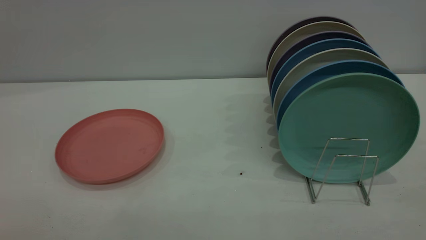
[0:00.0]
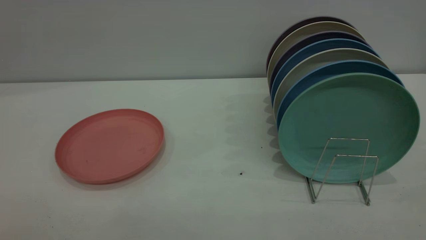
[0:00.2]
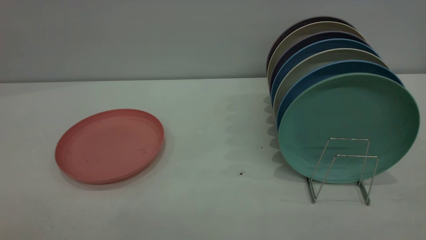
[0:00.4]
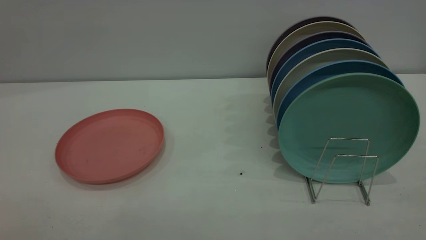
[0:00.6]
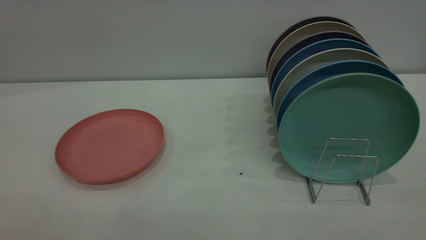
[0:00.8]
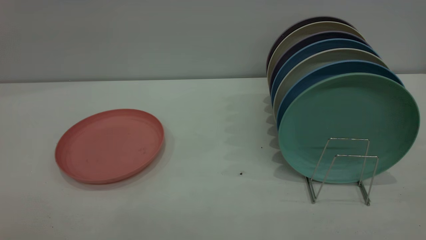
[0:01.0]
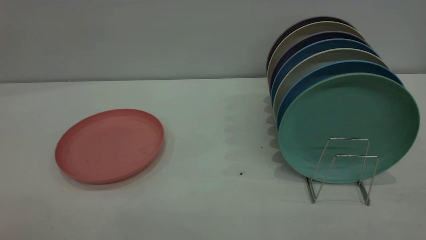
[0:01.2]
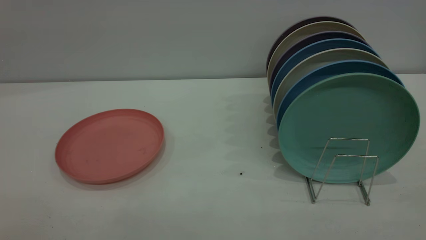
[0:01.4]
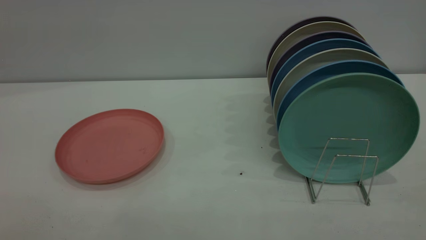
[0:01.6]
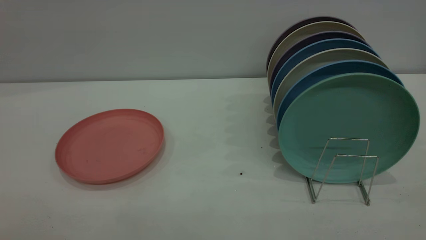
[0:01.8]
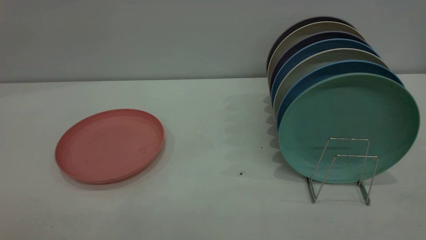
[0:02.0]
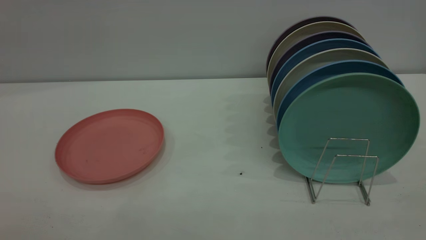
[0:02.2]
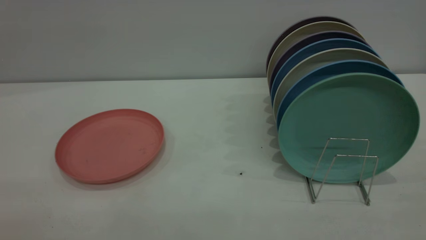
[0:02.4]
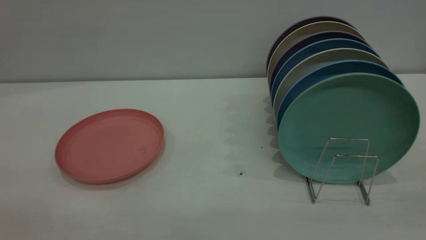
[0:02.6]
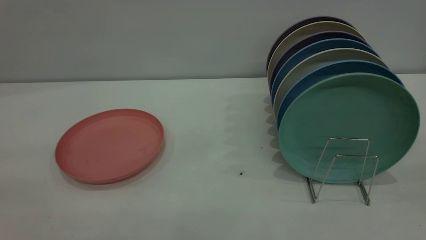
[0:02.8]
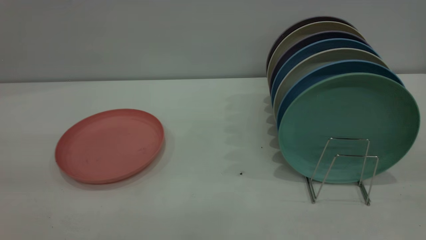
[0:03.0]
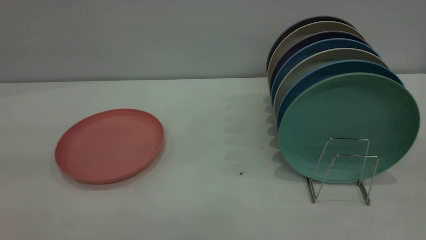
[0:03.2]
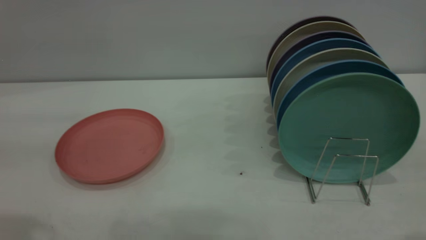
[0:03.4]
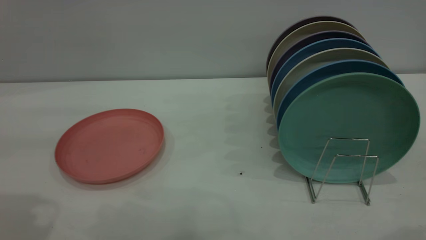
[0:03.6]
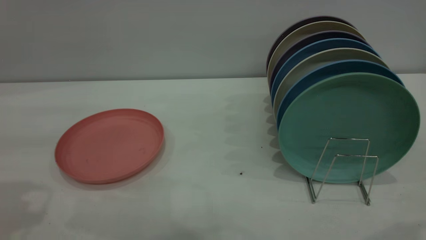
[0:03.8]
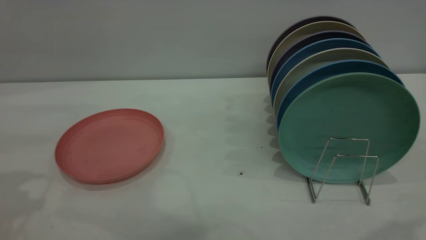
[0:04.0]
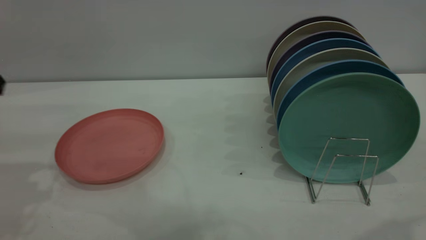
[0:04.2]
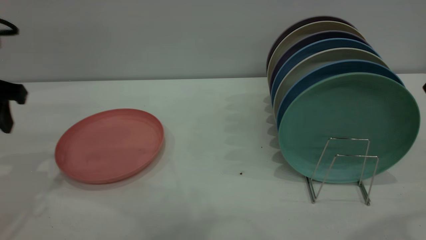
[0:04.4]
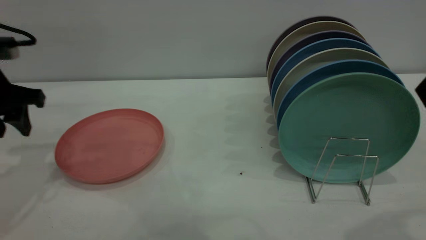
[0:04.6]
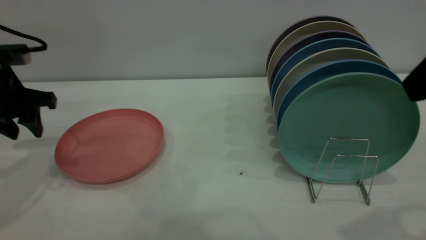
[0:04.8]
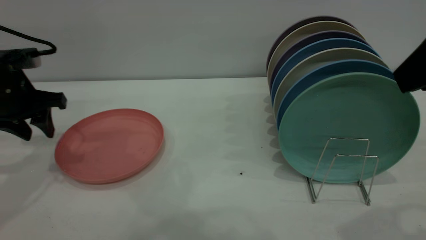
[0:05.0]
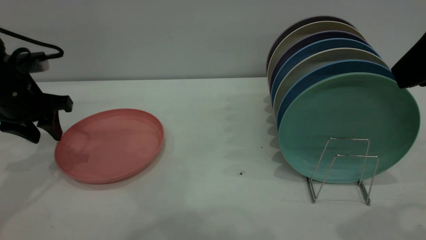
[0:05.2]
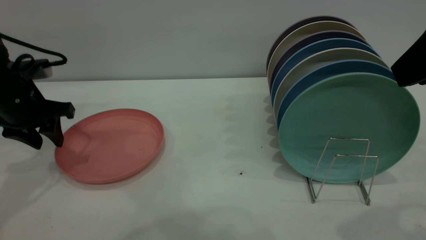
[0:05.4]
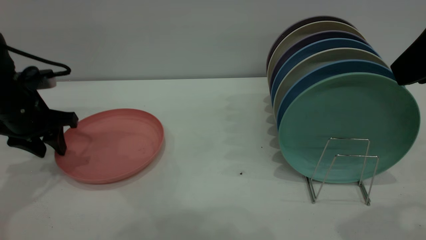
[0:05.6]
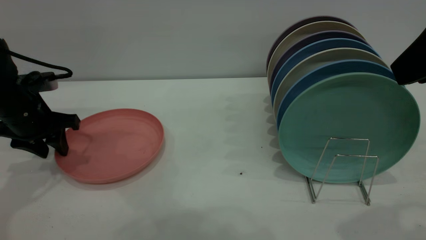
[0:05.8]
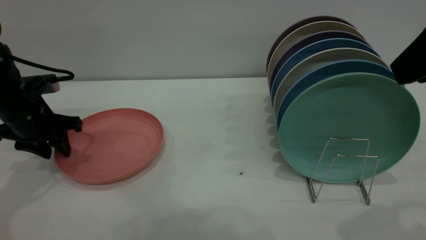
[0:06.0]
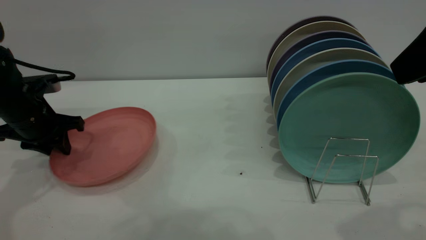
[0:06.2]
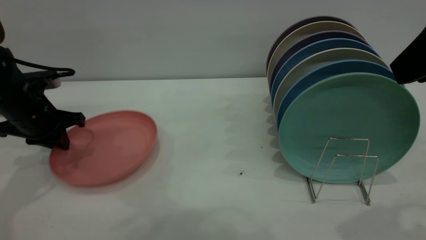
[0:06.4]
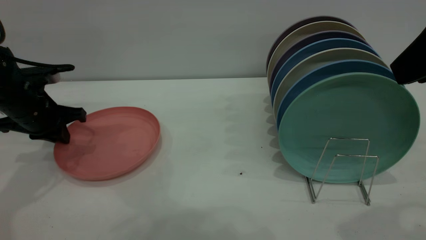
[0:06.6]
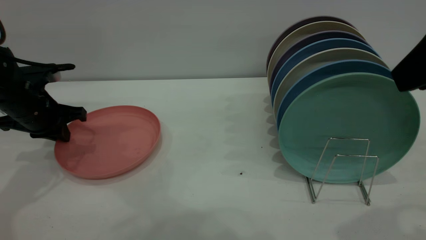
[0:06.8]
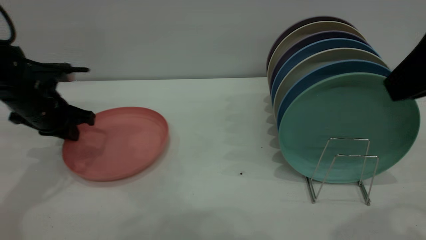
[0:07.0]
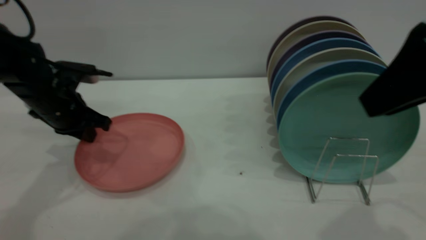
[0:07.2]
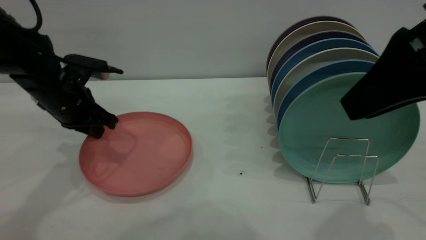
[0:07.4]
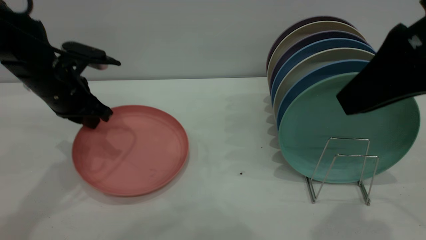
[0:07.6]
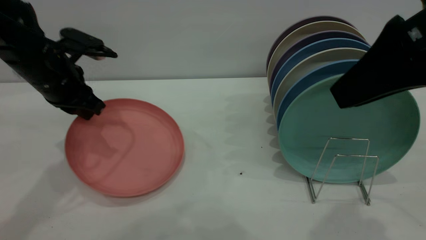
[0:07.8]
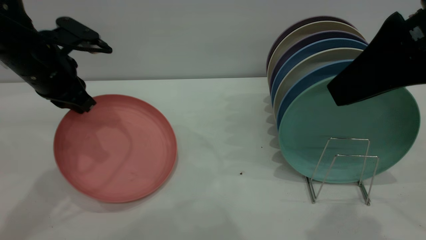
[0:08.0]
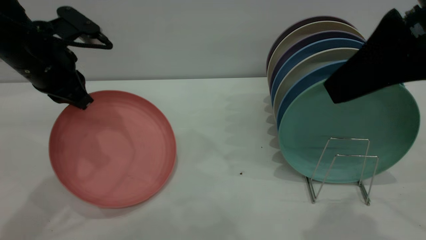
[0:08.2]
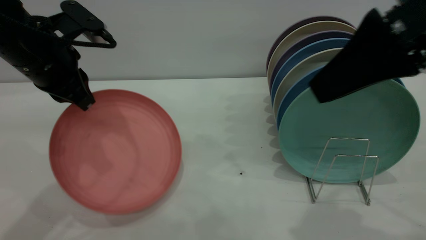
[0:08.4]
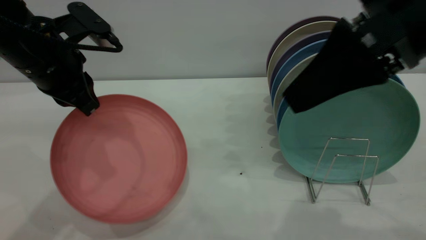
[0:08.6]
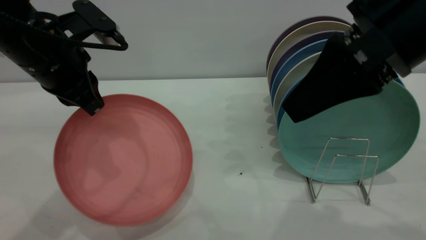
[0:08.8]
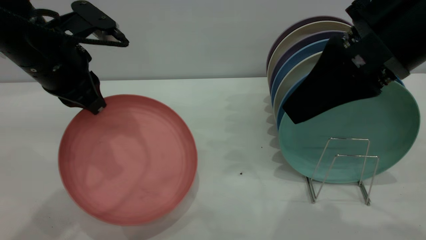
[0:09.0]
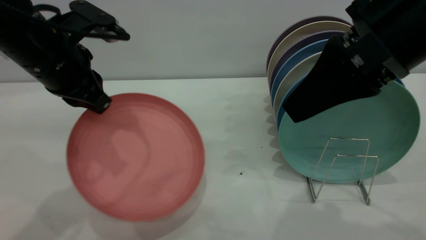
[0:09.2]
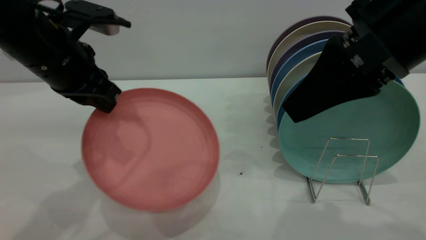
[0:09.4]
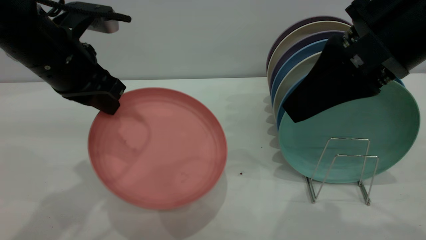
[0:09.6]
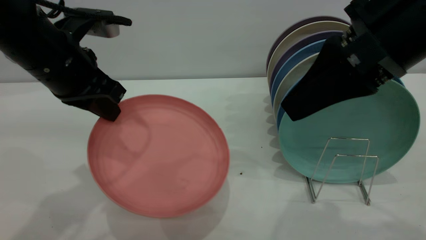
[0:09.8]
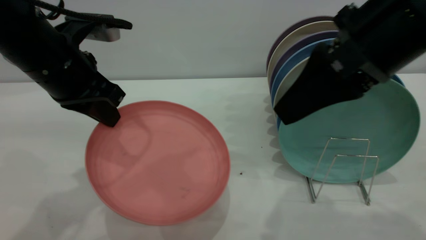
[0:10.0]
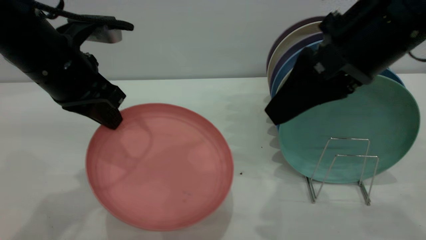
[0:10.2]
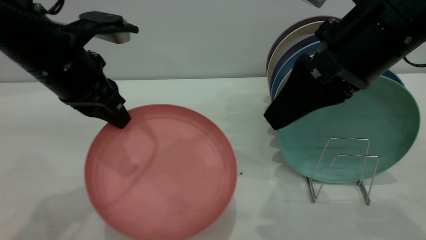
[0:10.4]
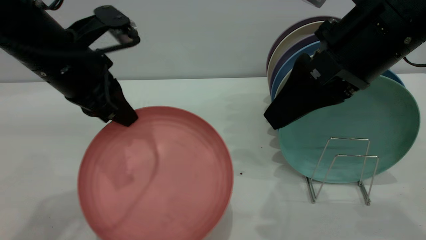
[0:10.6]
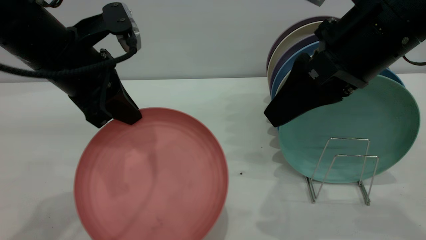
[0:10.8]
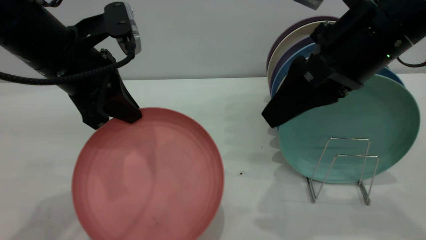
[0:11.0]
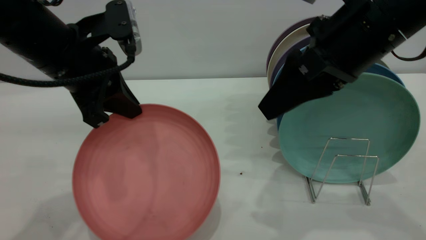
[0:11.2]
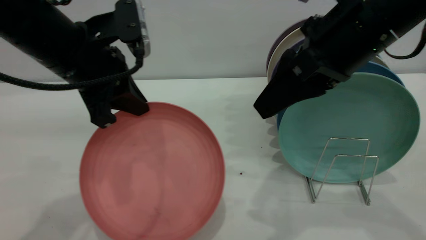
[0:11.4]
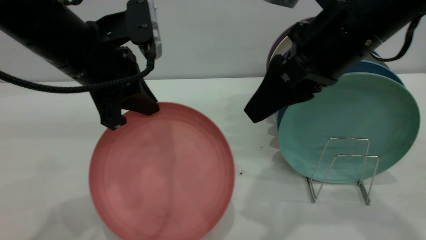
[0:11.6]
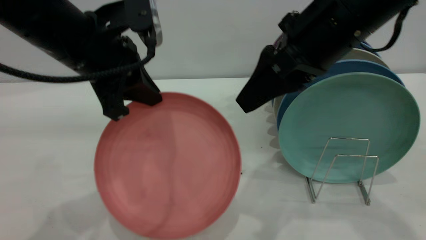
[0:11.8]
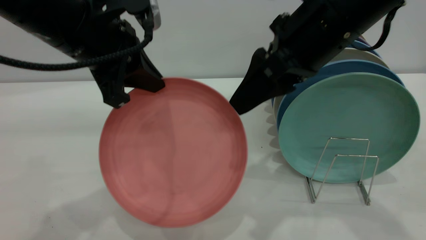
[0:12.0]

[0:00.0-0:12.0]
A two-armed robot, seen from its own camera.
Task of the whole recording: put the plate on the plate rack.
Step, 0:00.0 to 0:08.2: Pick up the plate with the left gripper.
0:00.0 to 0:01.6: Both grippers stay about where they are.
0:03.0 to 0:04.4: The left gripper moves forward and downward, about 25 cm.
0:04.4 to 0:06.0: The left gripper heads downward and forward, covering approximately 10 cm.
0:06.0 to 0:07.6: The left gripper is displaced to the right by roughly 5 cm, and closes up.
0:07.6 to 0:09.0: The right gripper ends up approximately 5 cm from where it was; the left gripper travels upward and backward by roughly 10 cm.
0:10.4 to 0:12.0: The right gripper changes place by some 5 cm.

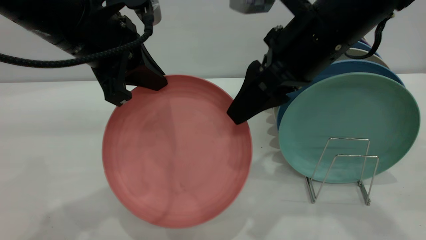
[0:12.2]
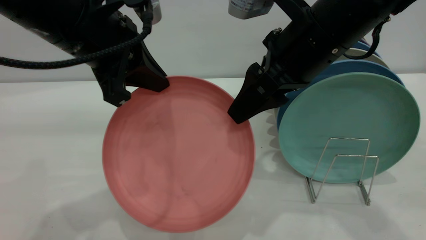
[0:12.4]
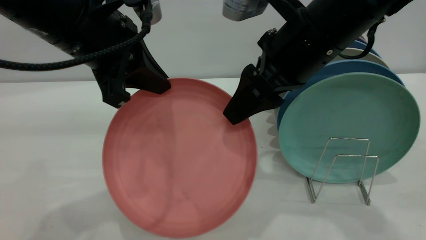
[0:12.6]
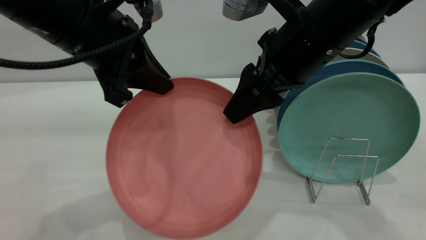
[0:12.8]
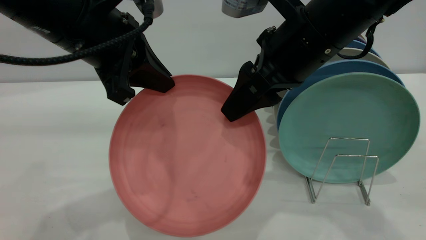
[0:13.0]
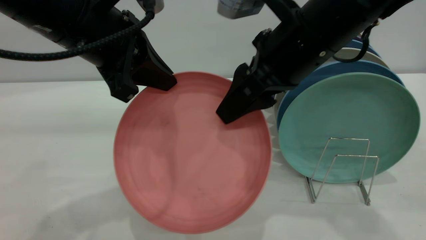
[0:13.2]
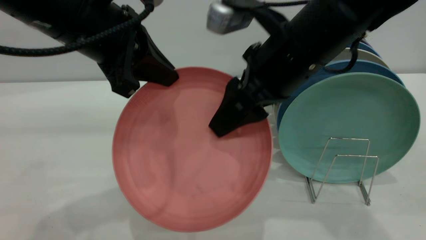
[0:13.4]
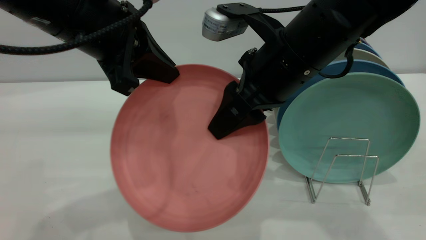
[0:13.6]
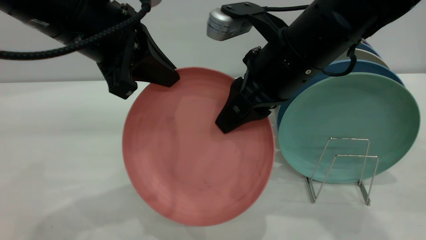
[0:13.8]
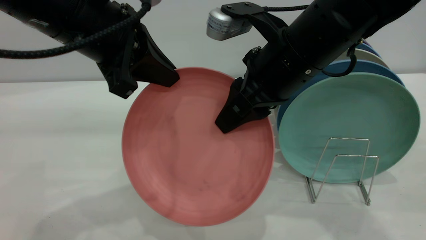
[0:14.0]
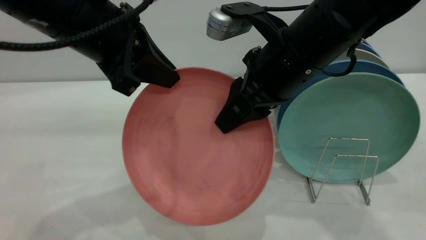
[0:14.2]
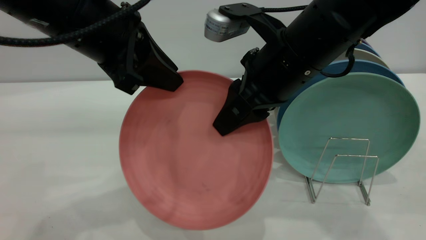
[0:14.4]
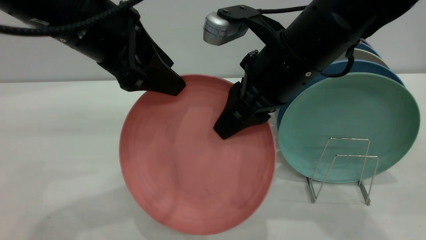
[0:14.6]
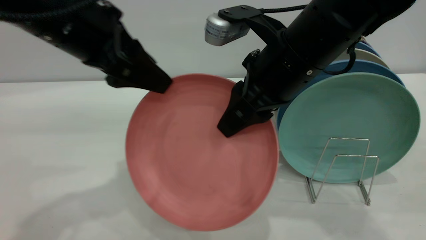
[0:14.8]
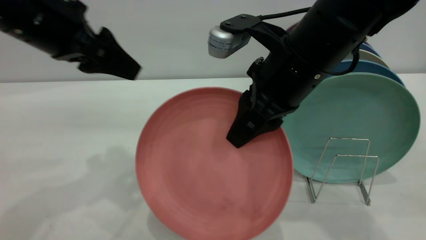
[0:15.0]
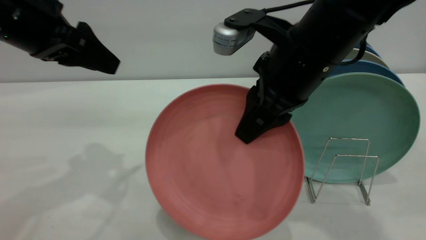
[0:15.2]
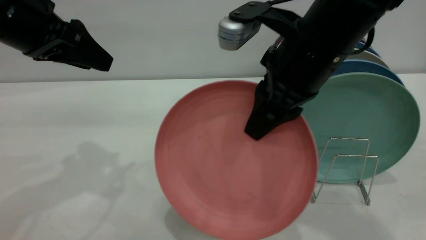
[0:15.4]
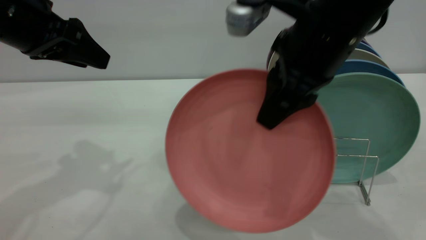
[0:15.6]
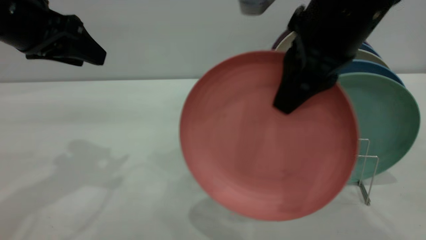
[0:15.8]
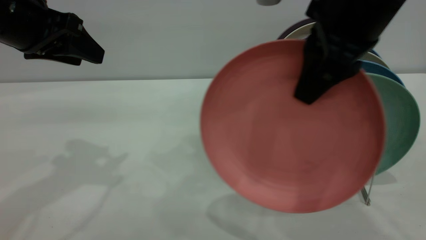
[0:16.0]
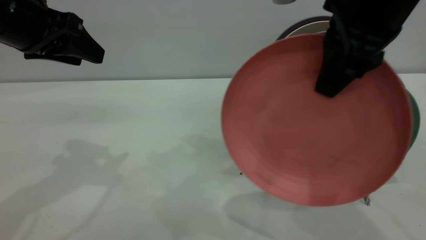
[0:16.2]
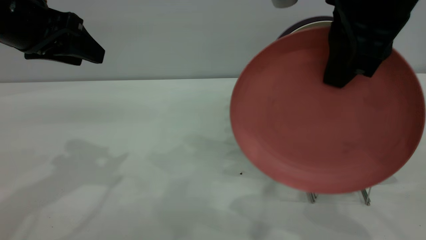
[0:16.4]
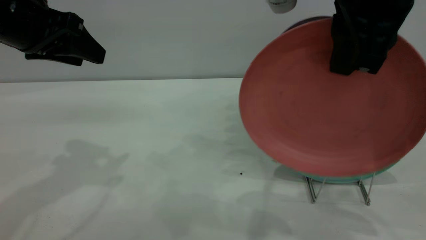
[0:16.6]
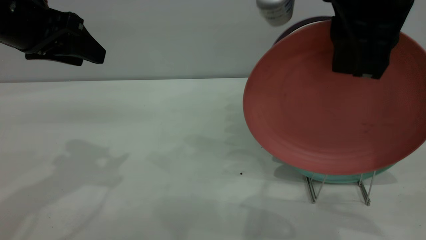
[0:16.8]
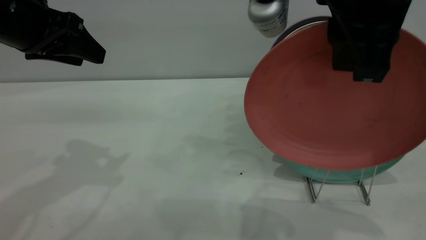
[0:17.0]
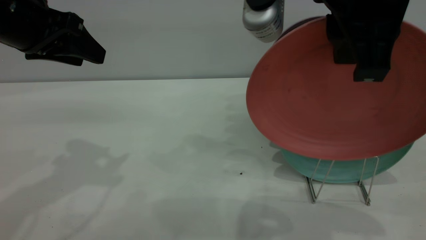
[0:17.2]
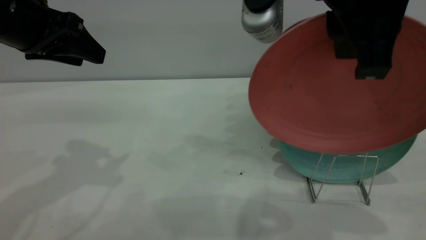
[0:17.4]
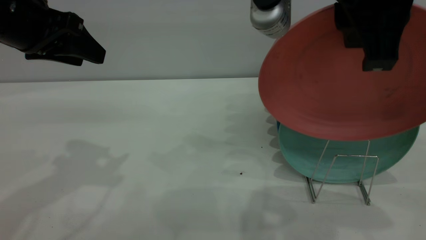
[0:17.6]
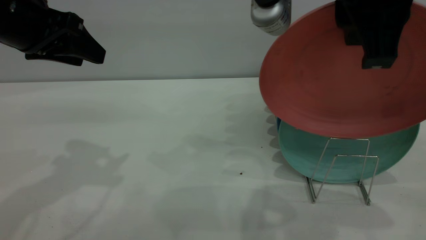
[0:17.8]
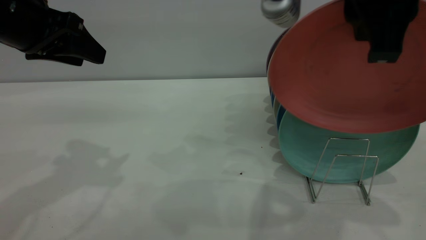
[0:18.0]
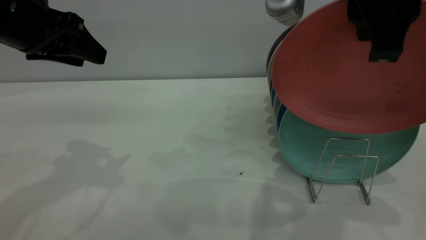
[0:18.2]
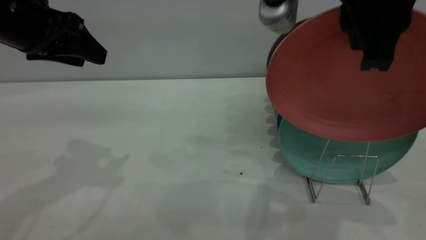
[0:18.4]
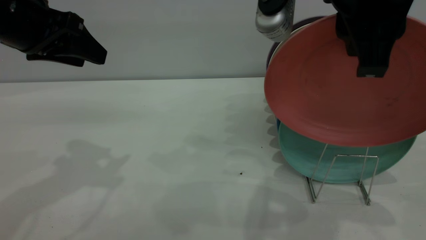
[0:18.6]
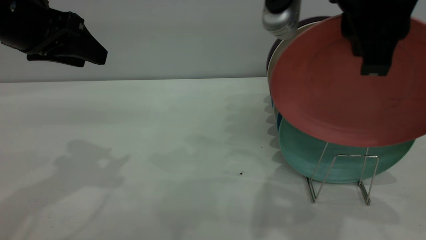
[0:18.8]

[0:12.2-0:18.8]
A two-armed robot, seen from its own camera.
Task of the whole recording: put the plate on the plate rack.
Step, 0:12.2 to 0:14.8: Pass the plate from the left gripper to the right gripper.
0:12.2 to 0:13.8: The right gripper closes.
0:13.8 to 0:15.4: The left gripper shifts roughly 10 cm to the left, and opens.
0:15.4 to 0:17.2: The right gripper shifts approximately 10 cm upward and backward.
0:17.2 to 0:18.8: The grippers make only small movements.
